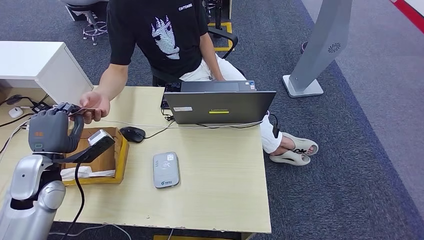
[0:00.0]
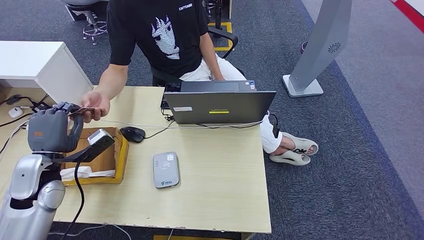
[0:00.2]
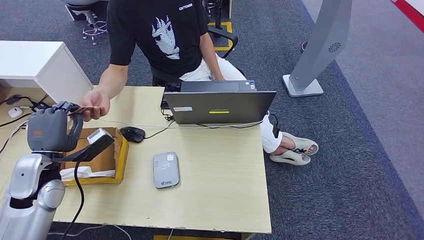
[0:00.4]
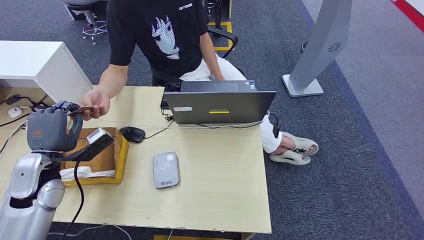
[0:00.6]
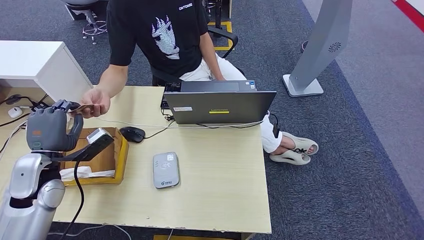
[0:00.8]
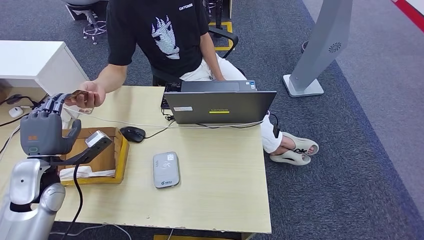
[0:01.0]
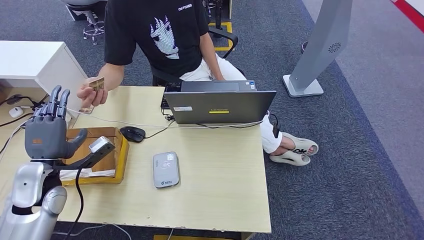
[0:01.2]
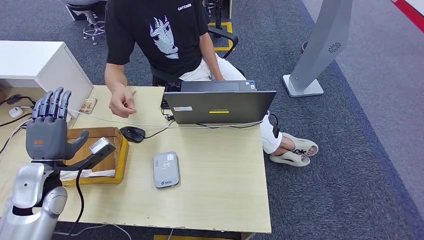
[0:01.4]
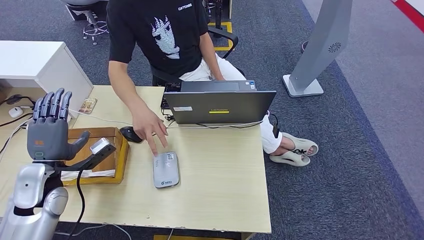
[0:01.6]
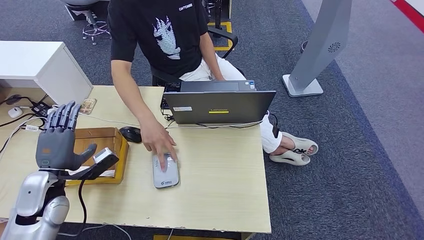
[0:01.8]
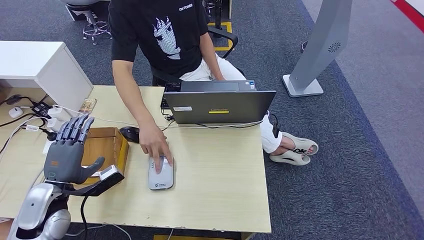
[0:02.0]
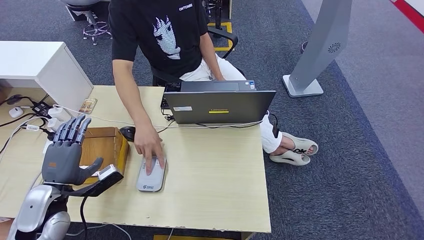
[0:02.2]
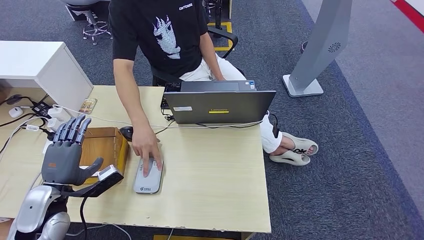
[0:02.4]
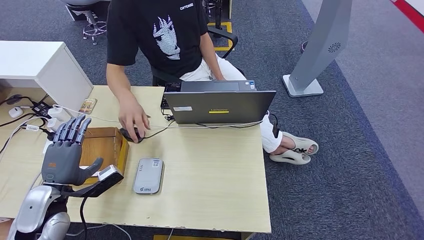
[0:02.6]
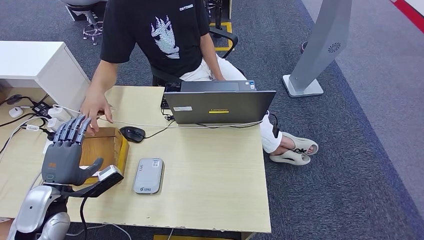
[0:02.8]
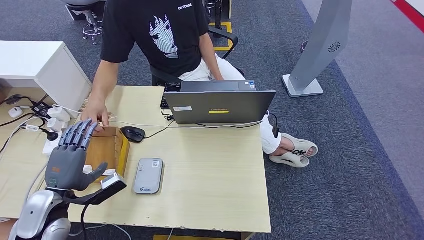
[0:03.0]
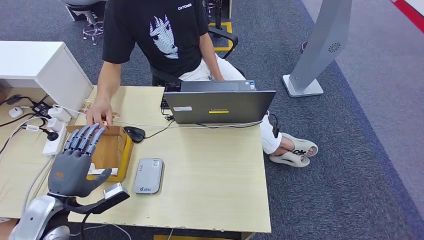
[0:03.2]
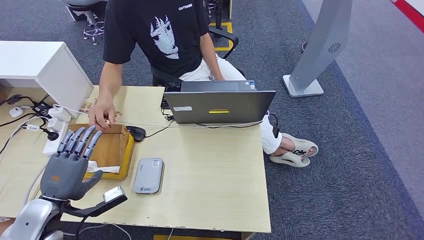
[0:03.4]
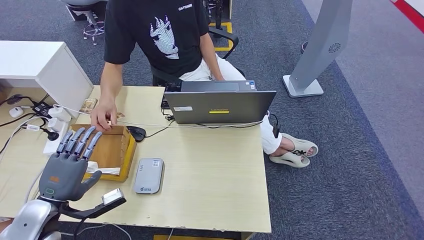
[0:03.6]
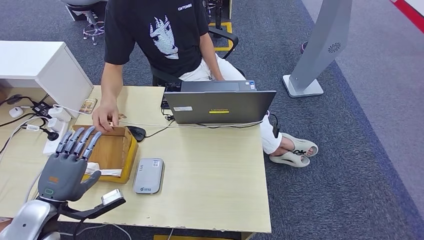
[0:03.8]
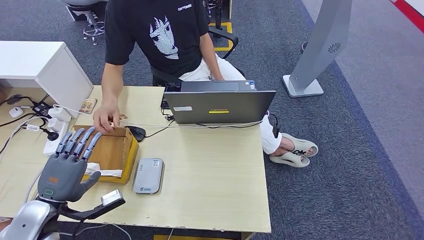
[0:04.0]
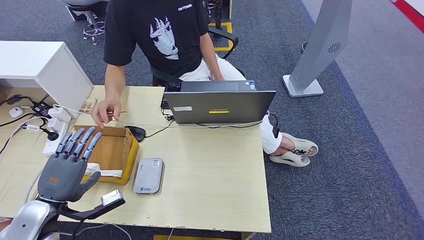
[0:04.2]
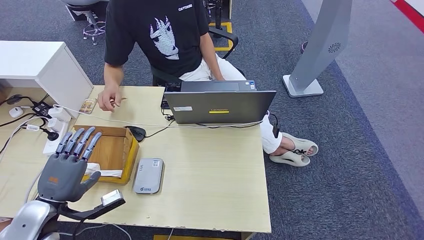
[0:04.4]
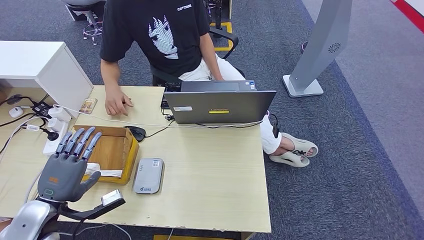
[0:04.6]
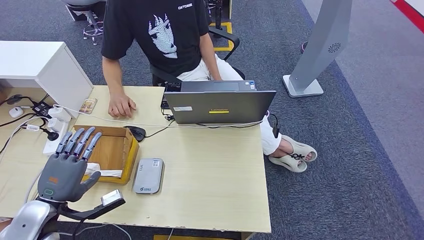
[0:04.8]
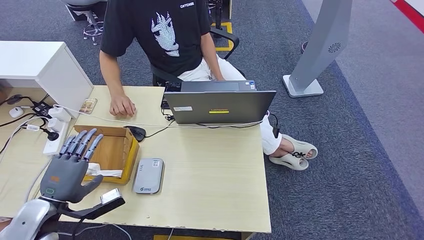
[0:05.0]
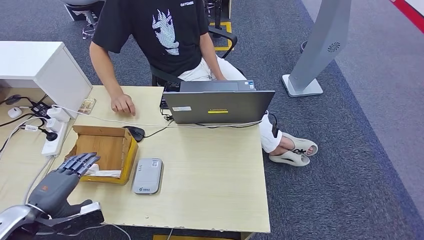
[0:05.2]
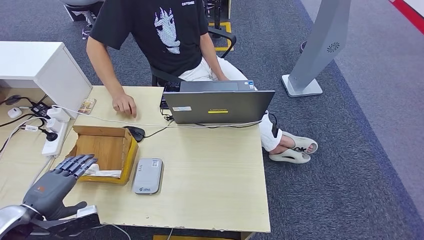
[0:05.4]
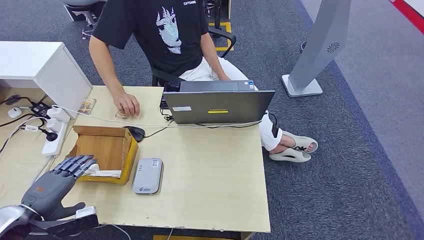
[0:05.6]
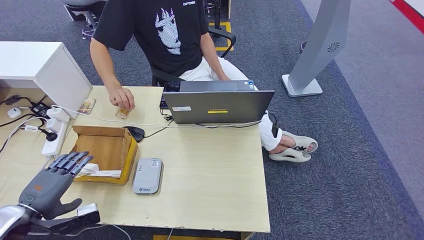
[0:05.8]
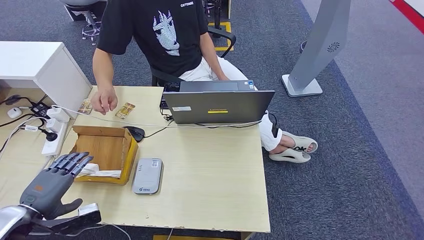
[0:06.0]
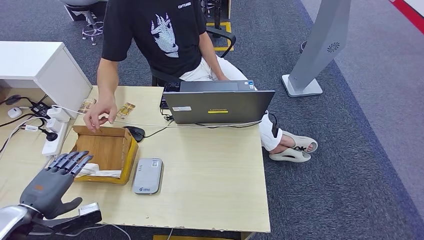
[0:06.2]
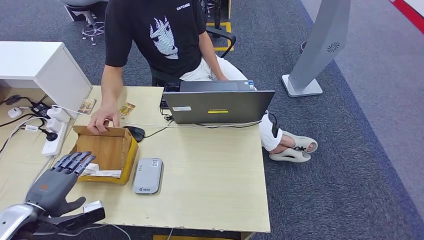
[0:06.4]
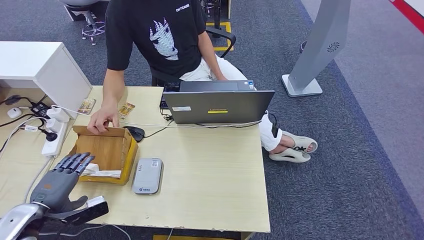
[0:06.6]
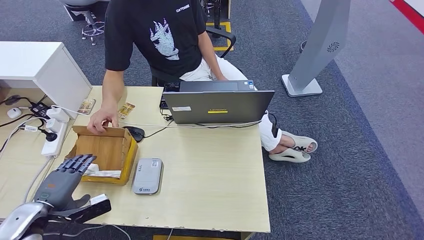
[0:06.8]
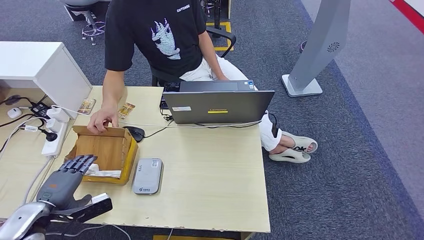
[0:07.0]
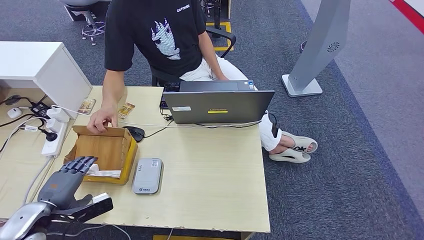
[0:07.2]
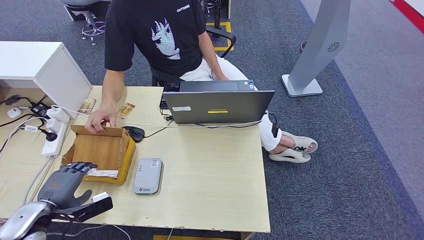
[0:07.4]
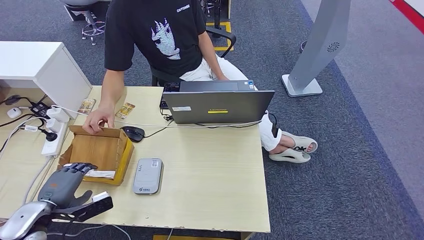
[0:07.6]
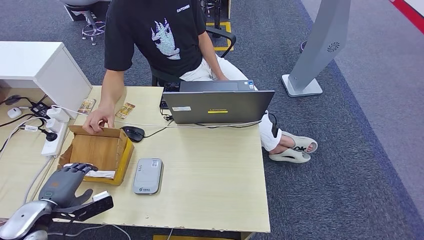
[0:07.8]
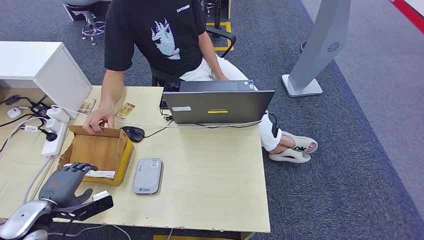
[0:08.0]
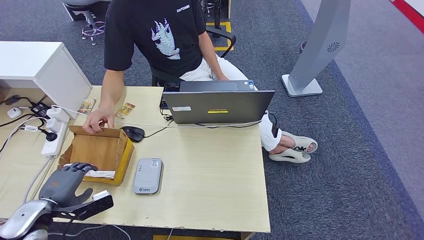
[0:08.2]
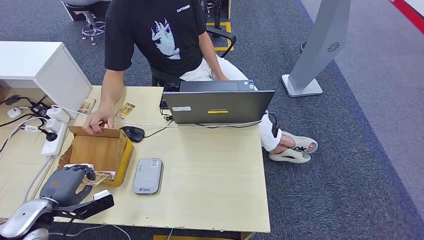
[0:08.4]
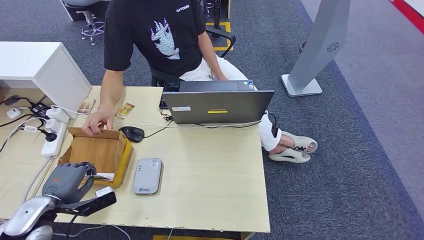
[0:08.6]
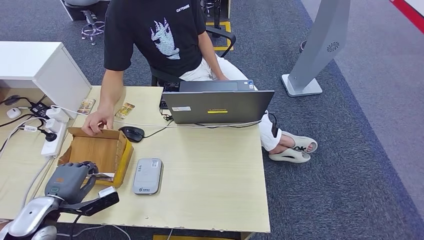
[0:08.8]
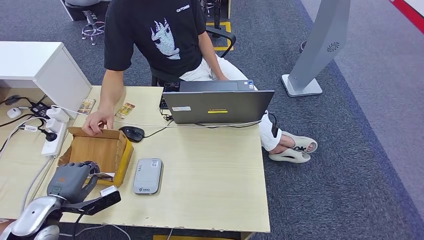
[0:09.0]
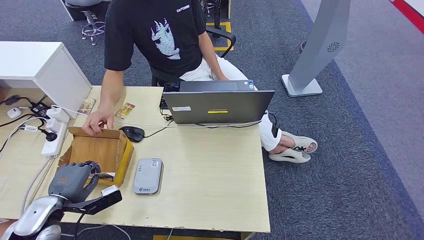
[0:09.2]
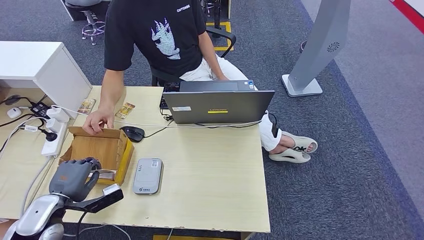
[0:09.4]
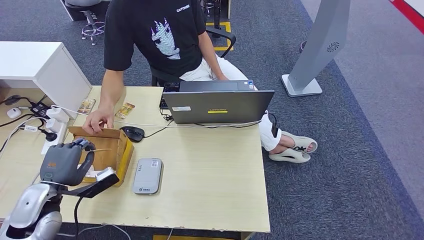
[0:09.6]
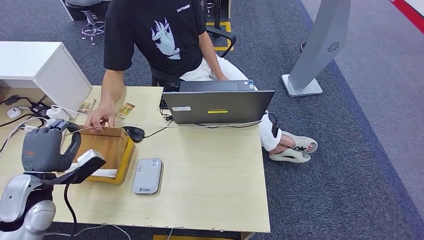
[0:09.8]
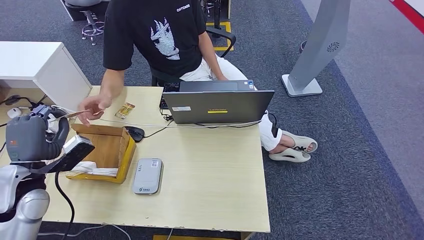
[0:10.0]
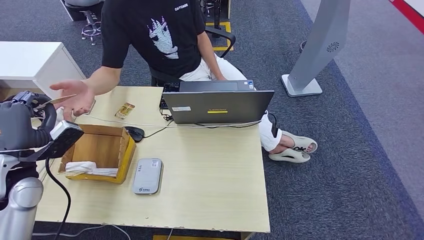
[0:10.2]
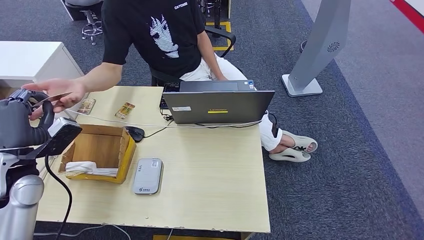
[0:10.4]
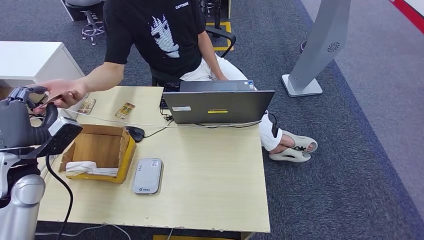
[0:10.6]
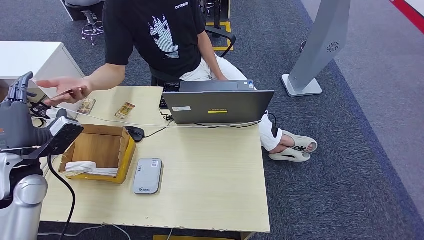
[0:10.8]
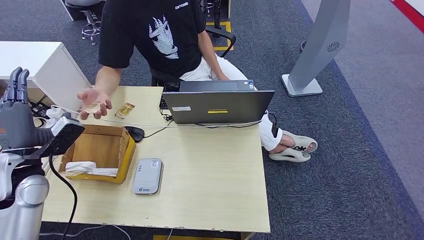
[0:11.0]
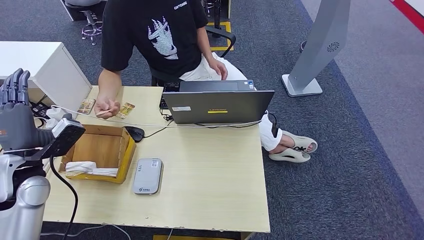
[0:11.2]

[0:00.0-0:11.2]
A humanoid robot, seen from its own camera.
Step, 0:00.8 to 0:09.8: Pick up the room key from the key card box.
Step, 0:10.0 to 0:11.2: Hand the room key to the person.
0:00.0 to 0:01.6: The hands stay close to where they were, moving slightly.
0:01.6 to 0:03.2: The left hand goes roughly 5 cm backward.
0:03.2 to 0:04.8: The hands stay close to where they were, moving slightly.
0:04.8 to 0:06.4: The left hand heads to the left, covering roughly 5 cm.
0:06.4 to 0:08.0: The hands make only small movements.
0:08.0 to 0:09.6: The left hand ends up approximately 5 cm from where it was.
0:09.6 to 0:11.2: The left hand is displaced upward and forward by some 10 cm.
